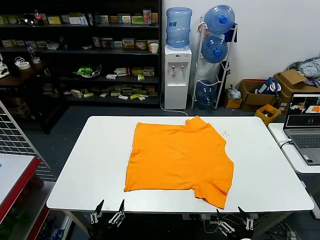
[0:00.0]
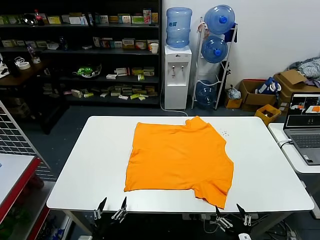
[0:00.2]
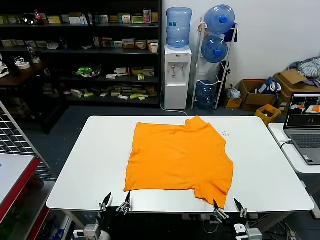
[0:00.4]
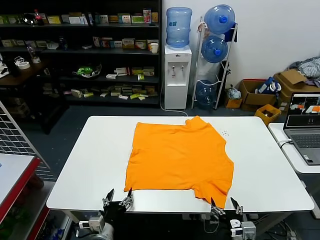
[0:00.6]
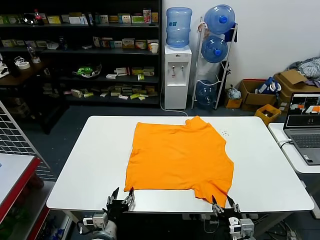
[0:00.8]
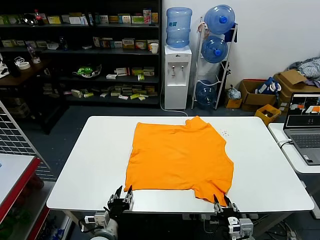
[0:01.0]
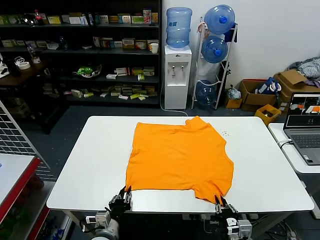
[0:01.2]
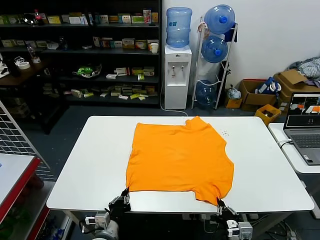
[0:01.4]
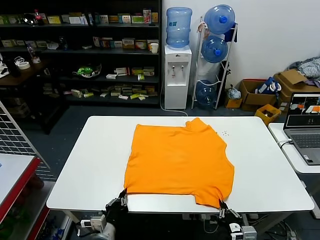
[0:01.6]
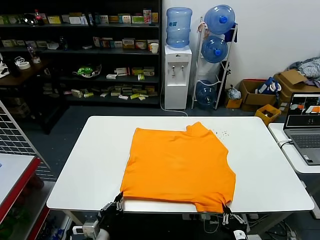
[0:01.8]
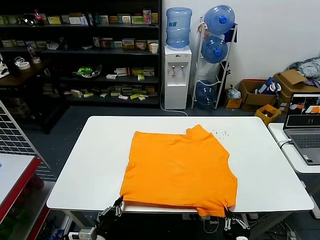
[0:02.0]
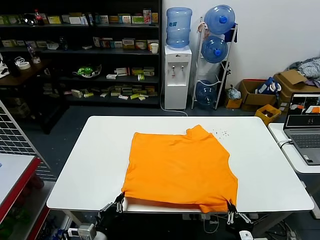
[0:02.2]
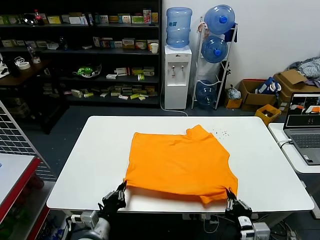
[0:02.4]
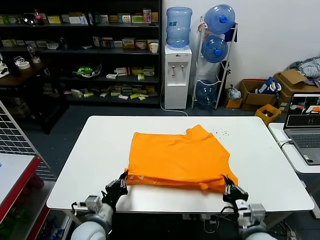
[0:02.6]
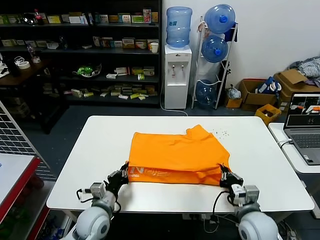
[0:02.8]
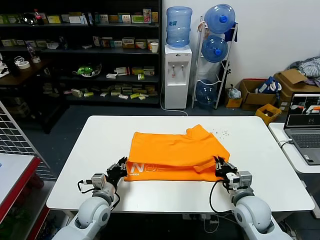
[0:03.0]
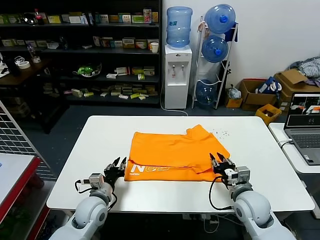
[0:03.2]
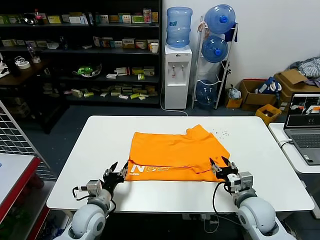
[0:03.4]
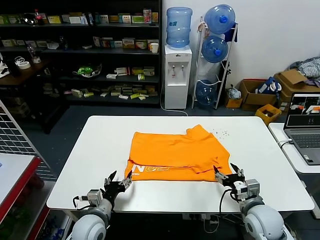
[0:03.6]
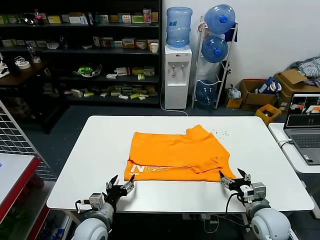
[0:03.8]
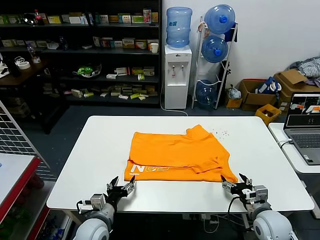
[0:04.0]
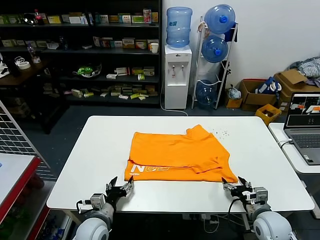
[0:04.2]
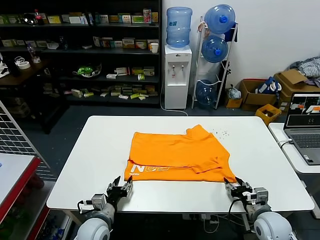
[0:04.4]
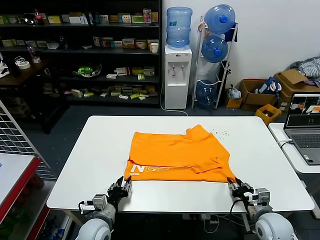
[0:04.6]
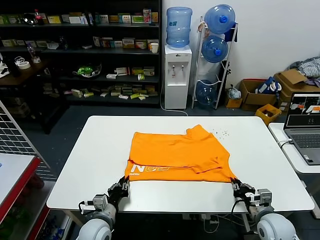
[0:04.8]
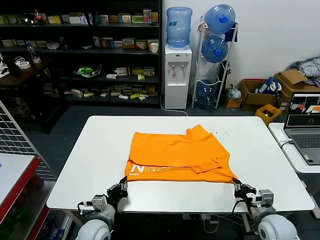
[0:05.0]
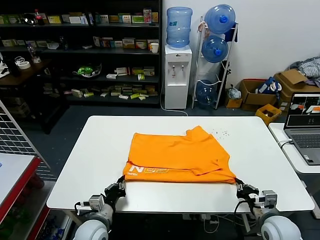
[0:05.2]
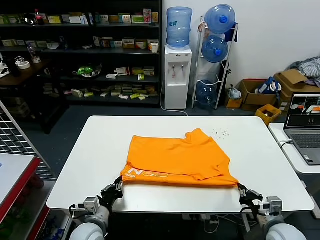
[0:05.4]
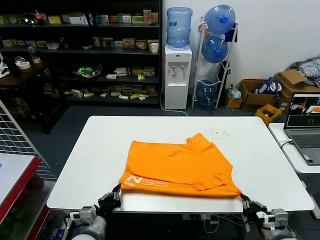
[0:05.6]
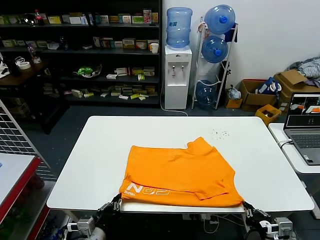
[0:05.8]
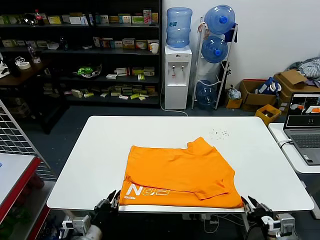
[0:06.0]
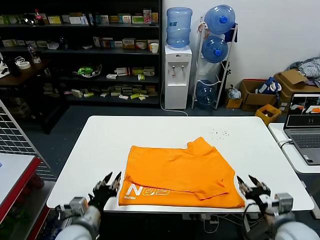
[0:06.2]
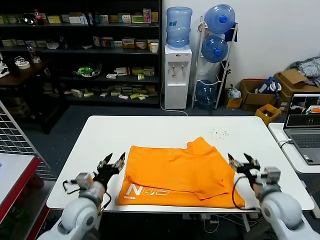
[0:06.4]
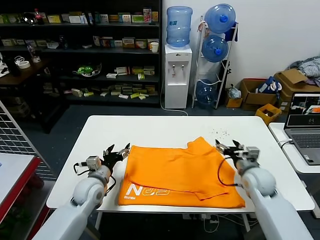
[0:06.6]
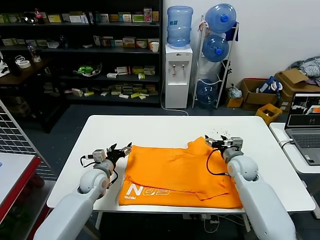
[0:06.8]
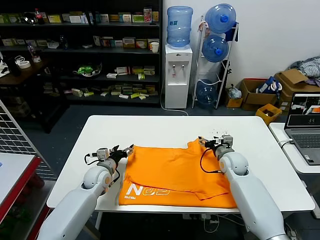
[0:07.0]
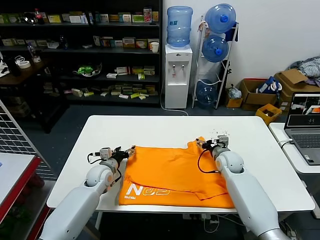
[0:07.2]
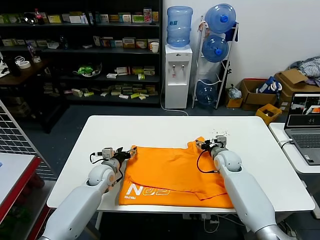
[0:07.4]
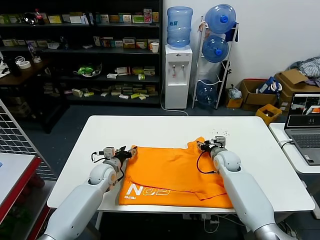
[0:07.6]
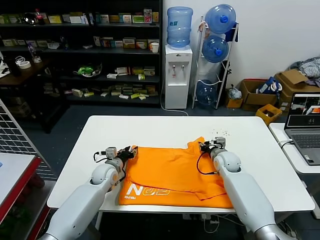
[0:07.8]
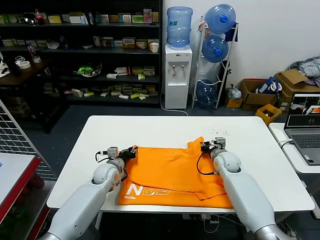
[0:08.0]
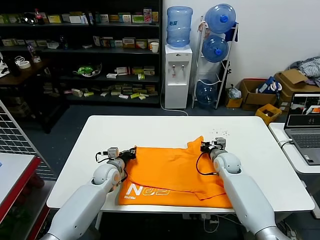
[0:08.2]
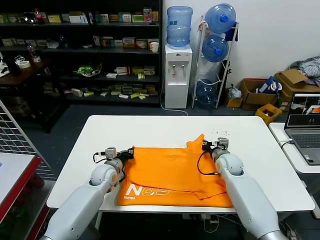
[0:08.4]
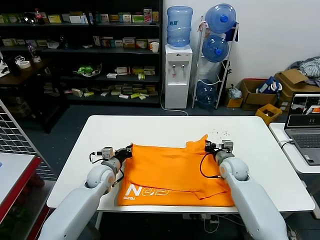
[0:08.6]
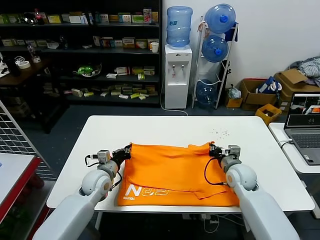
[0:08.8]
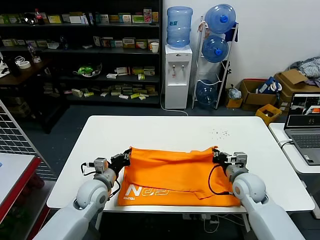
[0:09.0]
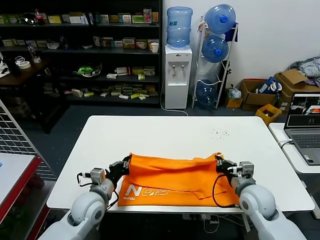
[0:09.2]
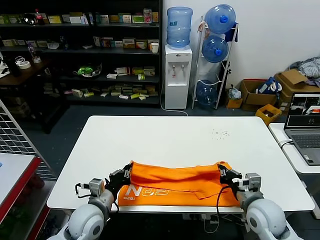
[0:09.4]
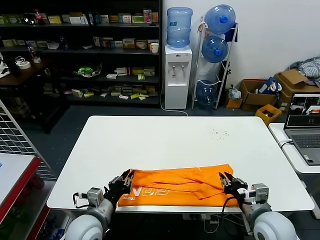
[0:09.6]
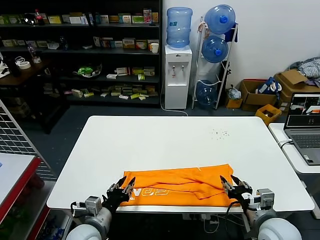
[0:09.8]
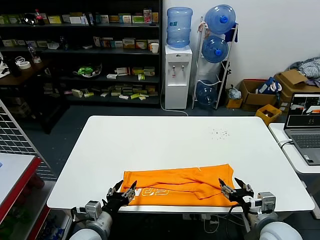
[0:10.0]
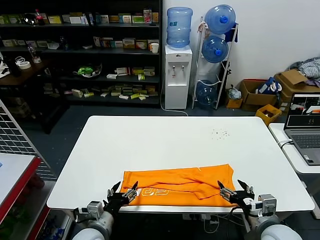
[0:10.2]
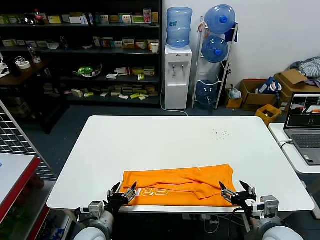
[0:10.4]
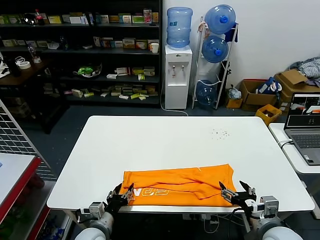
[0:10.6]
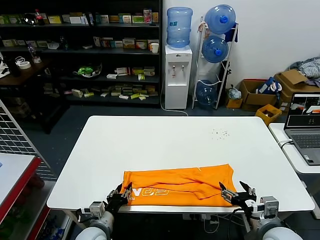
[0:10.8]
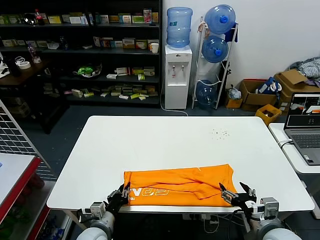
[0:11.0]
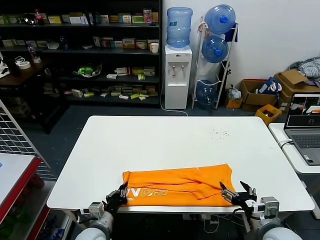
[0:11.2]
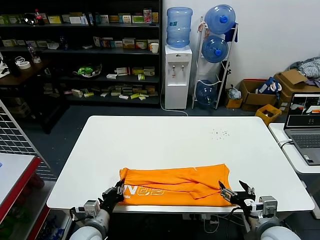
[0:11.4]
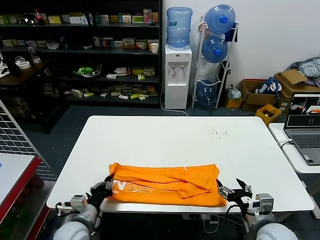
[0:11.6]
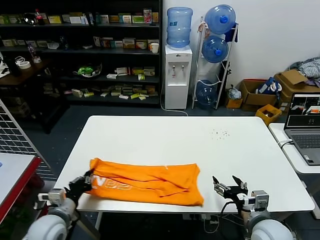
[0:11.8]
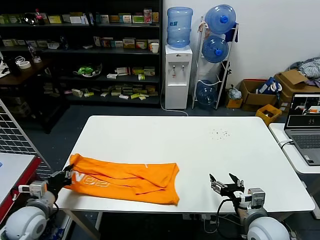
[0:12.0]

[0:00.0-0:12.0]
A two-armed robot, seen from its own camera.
Task of the whole recording: fold and organize the clothes.
Step, 0:00.0 to 0:02.0: use both grippers simultaneously to clamp the lower edge of the clothing fabric.
Step, 0:02.2 to 0:03.4: use both grippers to drag the lower edge of the fabric forward and fold it over the upper edge.
Step, 0:03.6 to 0:06.2: Drag the clothes downward with both gripper.
Step, 0:06.4 to 0:08.2: use both grippers simultaneously to clamp the upper edge of the clothing fabric.
Step, 0:08.4 to 0:10.0: use both grippers to drag the upper edge of the fabric backward and fold it over the lower edge.
Step, 0:10.4 to 0:11.2: use the left gripper to clamp the left edge of the fabric.
0:01.6 to 0:03.0: The grippers both shift forward by some 15 cm.
0:03.0 to 0:04.4: The right gripper shifts some 10 cm to the right and downward, and opens and closes again. The left gripper is displaced backward by approximately 5 cm, and opens.
0:04.4 to 0:06.0: The two grippers go roughly 10 cm backward and upward. The right gripper closes, then opens again. Meanwhile the left gripper closes.
0:06.0 to 0:07.6: The two grippers go some 30 cm forward. The left gripper opens up.
0:07.6 to 0:09.0: The right gripper heads backward, covering roughly 15 cm, and closes up; the left gripper heads backward and upward, covering approximately 10 cm, and closes.
0:09.0 to 0:10.4: Both grippers travel together backward, roughly 15 cm. The right gripper opens; the left gripper opens its fingers.
0:10.4 to 0:12.0: The left gripper heads to the left, covering approximately 15 cm, and closes its fingers.

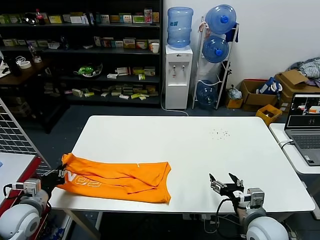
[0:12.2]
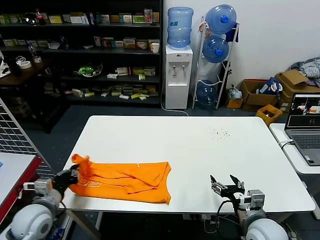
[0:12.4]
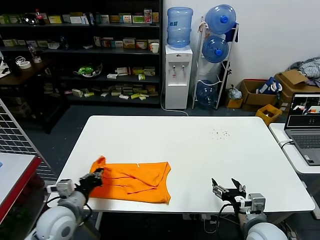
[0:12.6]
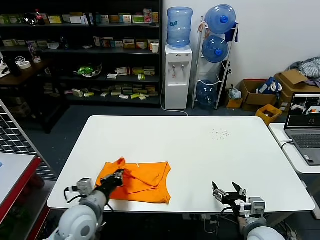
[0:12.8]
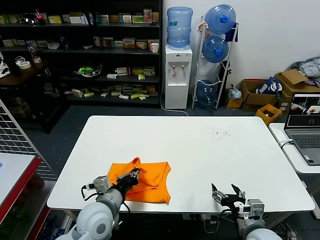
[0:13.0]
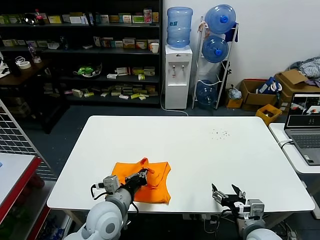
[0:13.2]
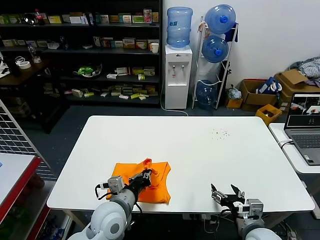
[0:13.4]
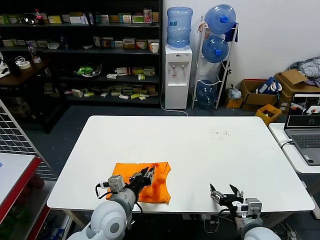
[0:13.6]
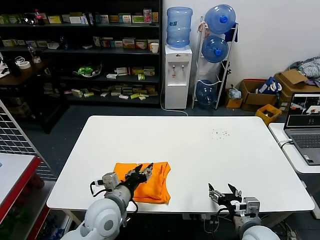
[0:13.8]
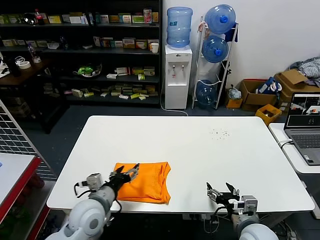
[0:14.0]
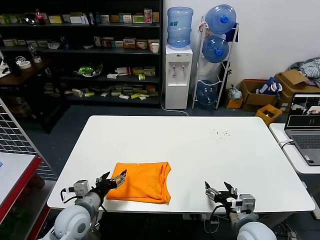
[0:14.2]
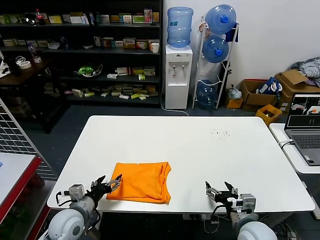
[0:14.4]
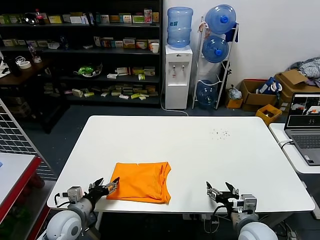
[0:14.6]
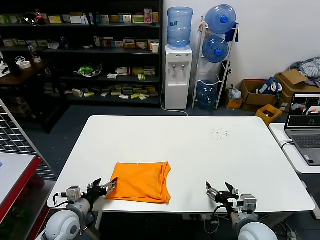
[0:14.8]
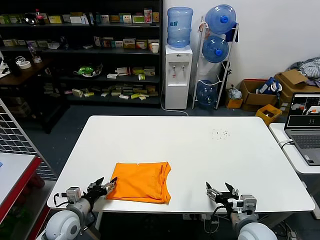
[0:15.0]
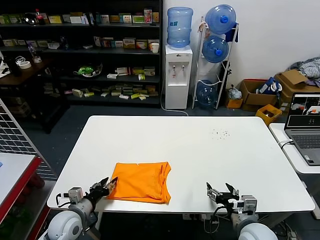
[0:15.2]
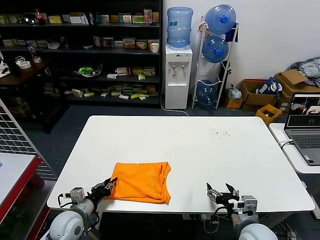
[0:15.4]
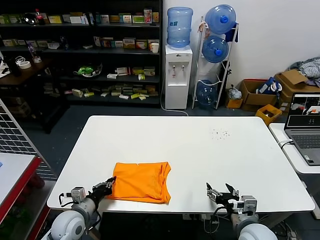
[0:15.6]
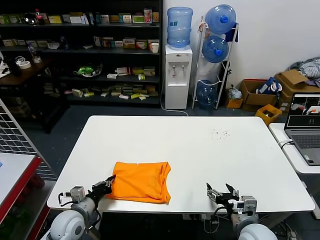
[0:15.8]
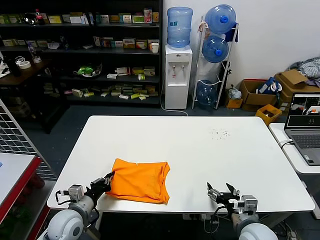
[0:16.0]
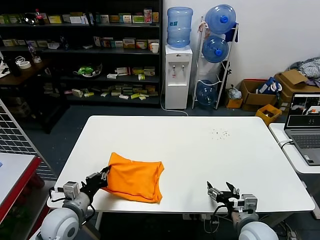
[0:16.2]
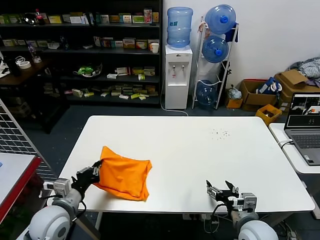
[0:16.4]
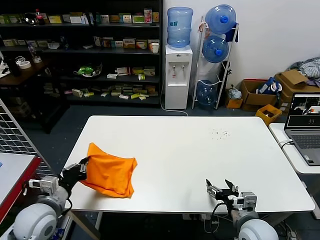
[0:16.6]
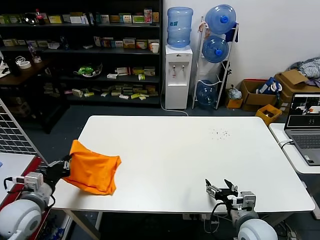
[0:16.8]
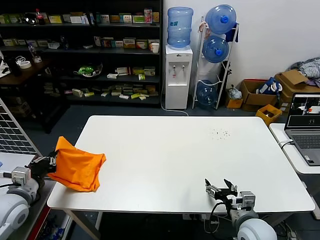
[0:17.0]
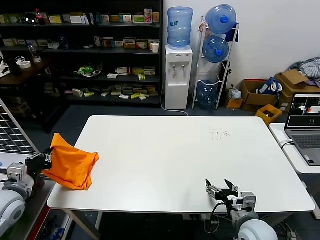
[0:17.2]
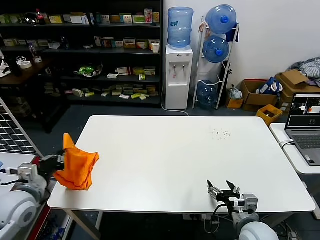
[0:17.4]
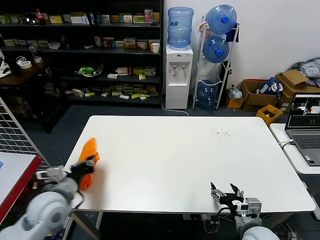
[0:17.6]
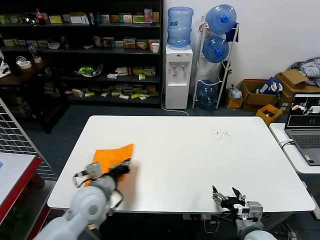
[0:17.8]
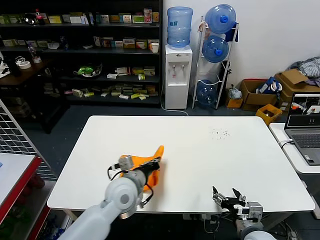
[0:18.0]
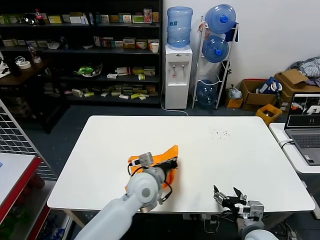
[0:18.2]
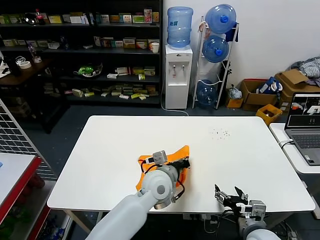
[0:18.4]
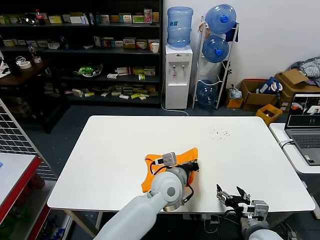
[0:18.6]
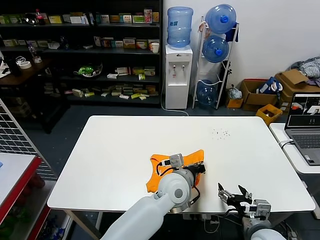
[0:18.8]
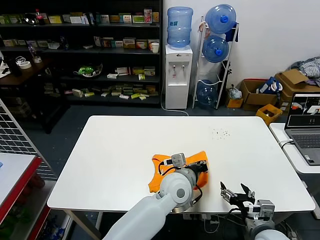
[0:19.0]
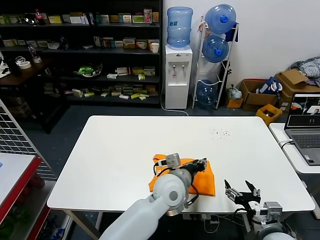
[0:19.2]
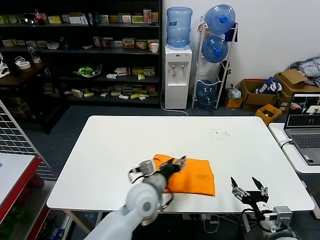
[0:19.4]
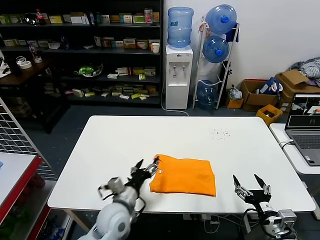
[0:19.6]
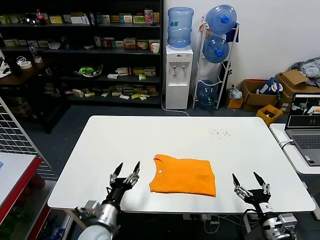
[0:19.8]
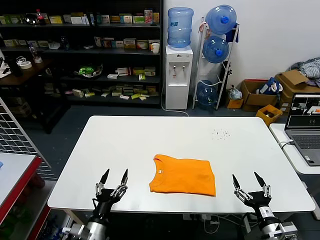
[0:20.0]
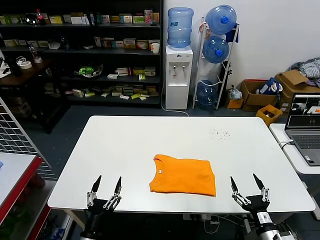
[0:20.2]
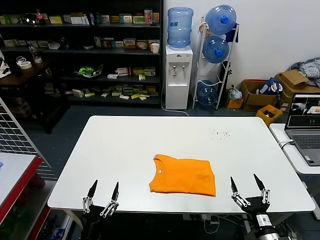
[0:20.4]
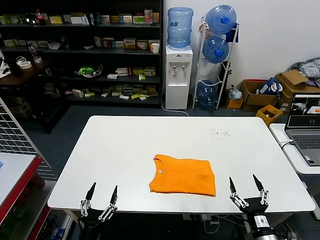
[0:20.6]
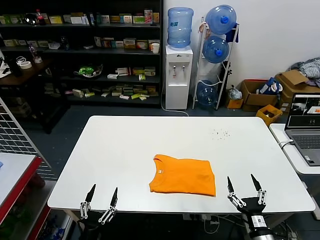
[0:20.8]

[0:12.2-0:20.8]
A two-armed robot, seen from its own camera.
Task of the whole recording: fold and organize the clothes.
Step, 0:12.2 to 0:13.6: use the left gripper to drag the left edge of the fabric to the left and folds it over the right edge.
Step, 0:14.0 to 0:19.2: Flip the folded clothes over with left gripper.
0:12.2 to 0:13.6: The left gripper is displaced to the right by about 25 cm, and opens.
0:13.6 to 0:15.0: The left gripper is displaced to the left and downward by approximately 20 cm, and opens.
0:15.0 to 0:16.6: The left gripper is displaced upward by about 10 cm, and closes.
0:16.6 to 0:18.0: The left gripper travels to the right by some 20 cm.
0:18.0 to 0:19.4: The left gripper goes approximately 10 cm to the right, and opens up. The right gripper goes some 5 cm to the right.
0:19.4 to 0:20.8: The left gripper moves to the left, backward and downward, some 35 cm. Meanwhile the right gripper shifts roughly 5 cm downward.

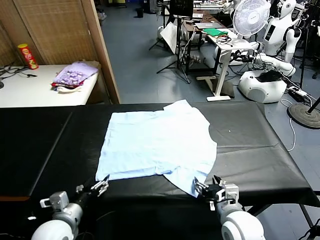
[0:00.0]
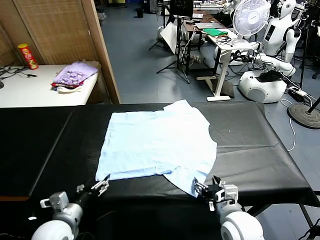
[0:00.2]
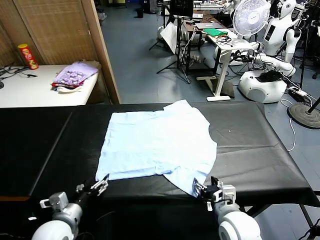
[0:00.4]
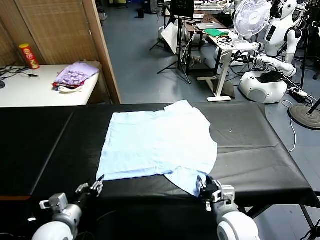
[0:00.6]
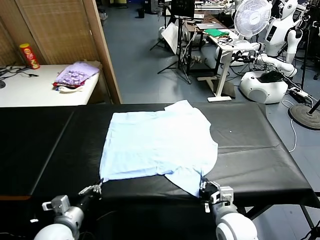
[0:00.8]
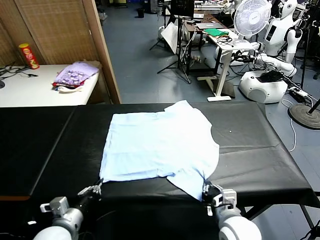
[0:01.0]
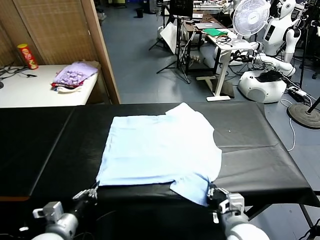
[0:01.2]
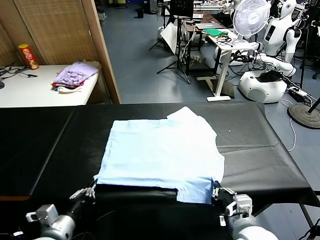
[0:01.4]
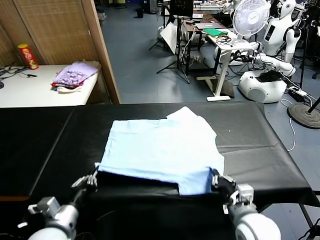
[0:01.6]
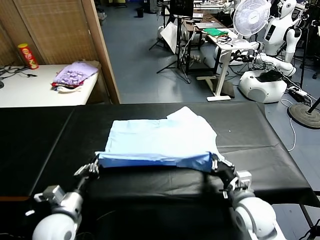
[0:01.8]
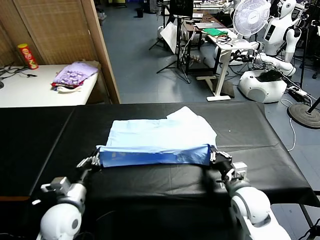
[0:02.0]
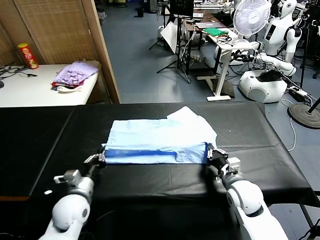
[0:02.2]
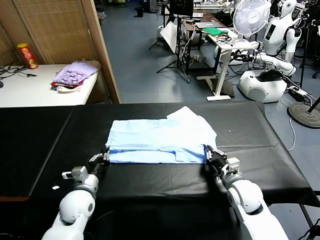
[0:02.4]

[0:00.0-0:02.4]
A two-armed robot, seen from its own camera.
Task of the whole recording: fold and organize the clothes.
Step, 0:00.0 to 0:00.8: use both grippers simultaneously to clamp the lower edge of the clothing fabric.
0:01.2 to 0:02.4: The right gripper shifts some 10 cm forward, and opens its fingers; the left gripper shifts approximately 15 cm forward and downward, and opens its fingers.
